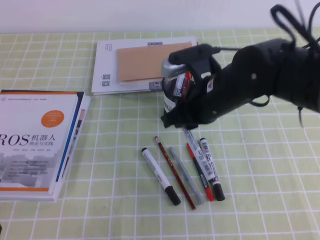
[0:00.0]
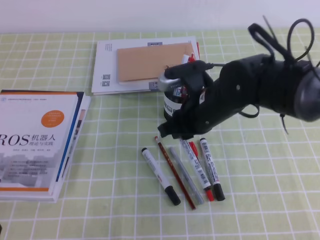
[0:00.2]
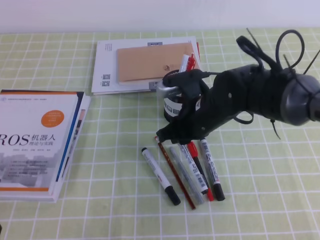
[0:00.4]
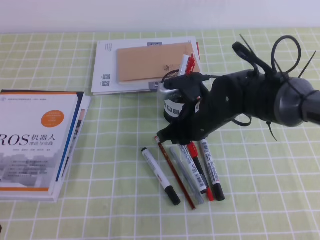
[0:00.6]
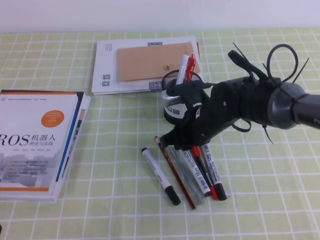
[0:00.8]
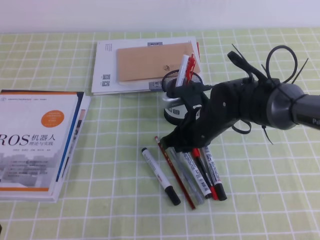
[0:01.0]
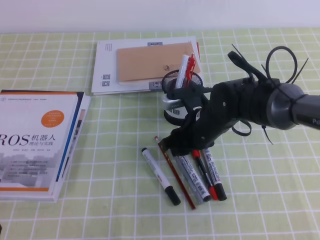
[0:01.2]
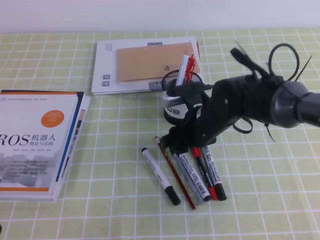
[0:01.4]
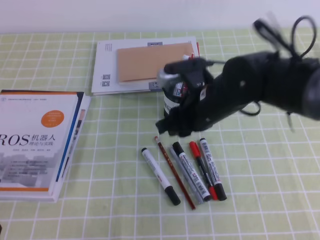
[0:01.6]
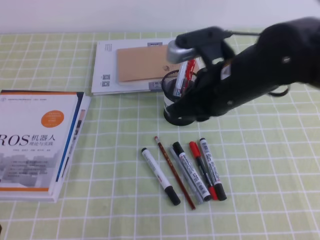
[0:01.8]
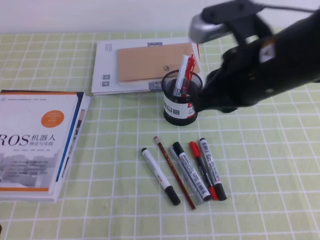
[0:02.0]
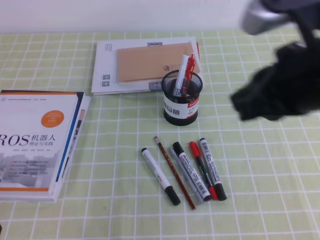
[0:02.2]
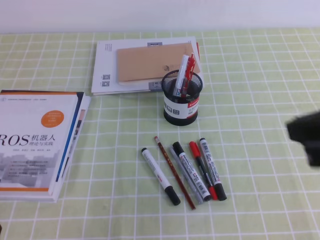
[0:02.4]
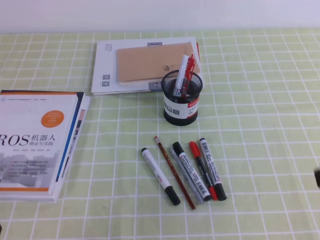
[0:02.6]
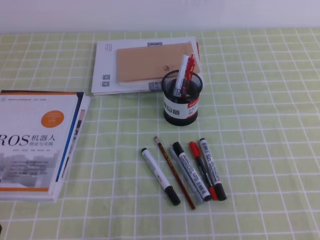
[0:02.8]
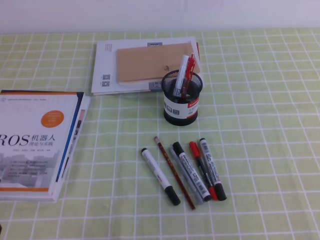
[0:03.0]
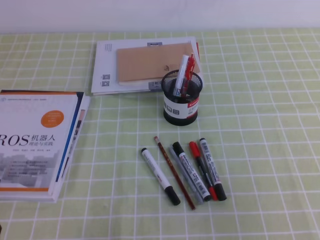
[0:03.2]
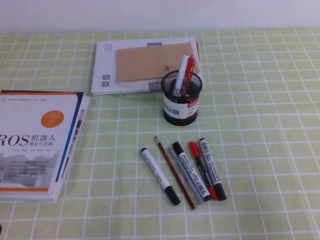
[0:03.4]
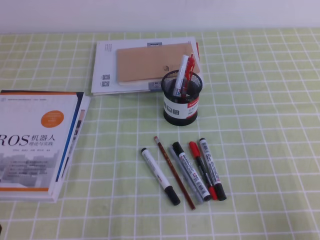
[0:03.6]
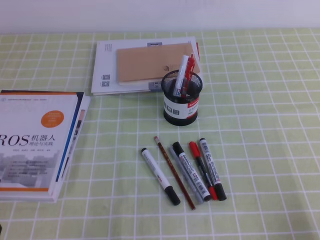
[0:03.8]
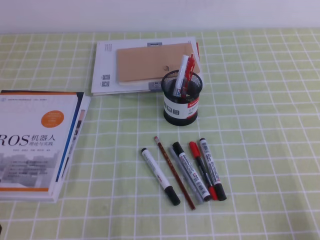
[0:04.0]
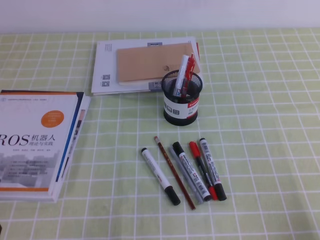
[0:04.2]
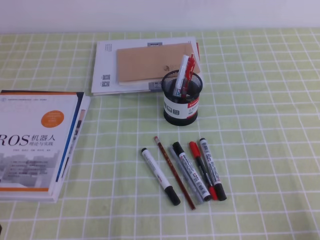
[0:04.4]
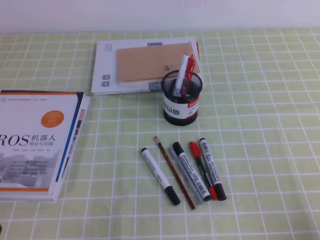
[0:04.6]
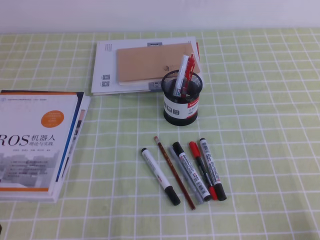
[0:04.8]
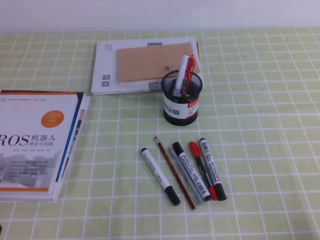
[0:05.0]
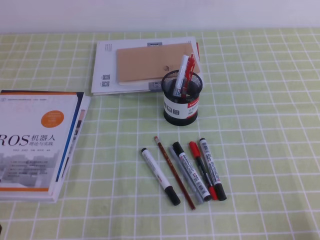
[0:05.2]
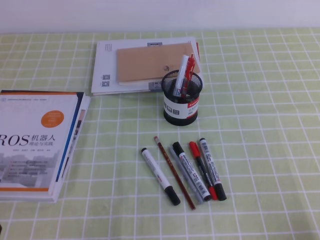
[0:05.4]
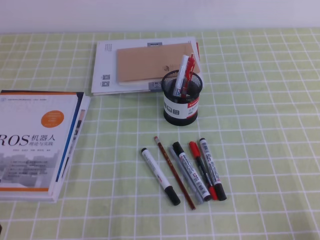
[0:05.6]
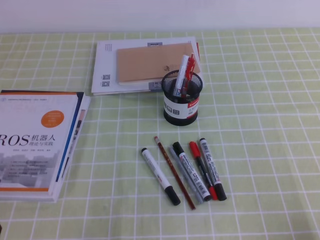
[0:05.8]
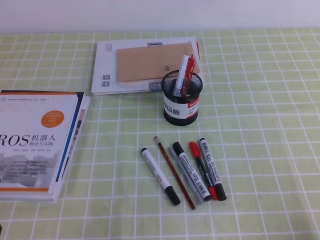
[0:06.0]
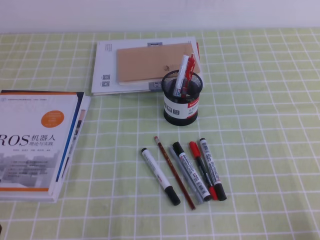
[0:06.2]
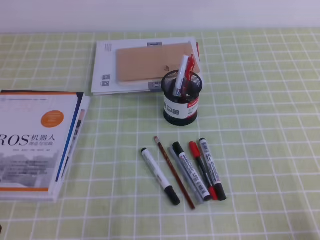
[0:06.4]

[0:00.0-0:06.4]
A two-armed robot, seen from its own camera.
Step, 0:00.0 to 0:06.4: Pick up the pen from the pen holder.
0:00.0 to 0:01.6: The right gripper reaches roughly 10 cm downward, then returns.
0:01.6 to 0:03.2: The right gripper goes some 30 cm backward and to the right, and closes its fingers.
0:03.2 to 0:04.8: The right gripper goes approximately 15 cm downward.
0:04.8 to 0:06.4: The two grippers keep their place.
